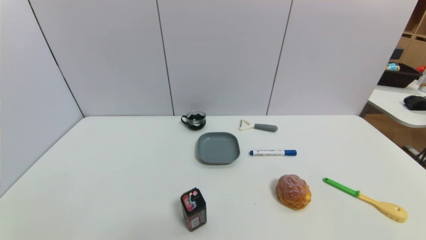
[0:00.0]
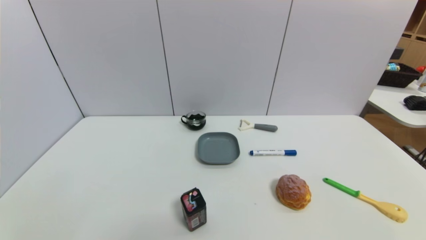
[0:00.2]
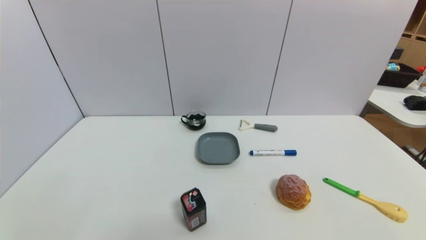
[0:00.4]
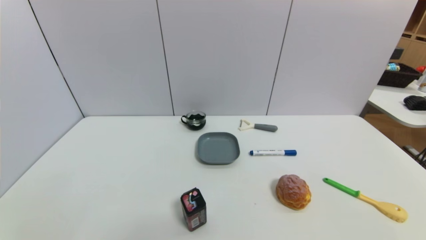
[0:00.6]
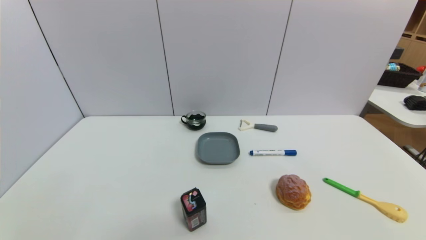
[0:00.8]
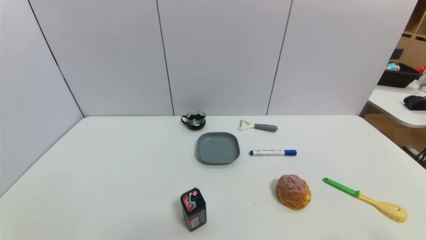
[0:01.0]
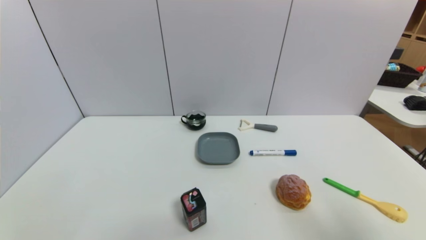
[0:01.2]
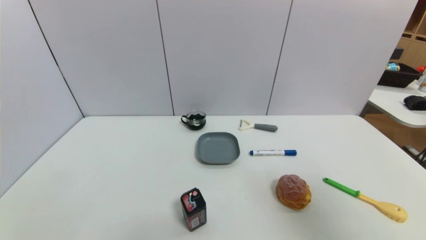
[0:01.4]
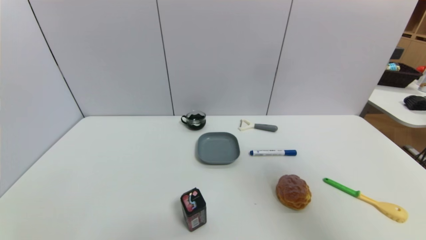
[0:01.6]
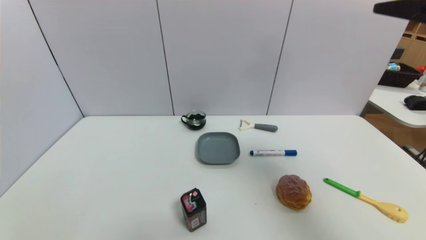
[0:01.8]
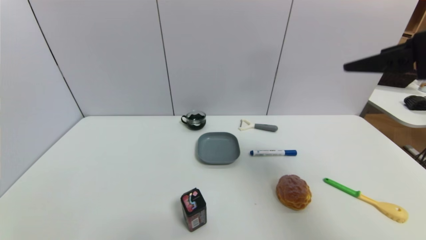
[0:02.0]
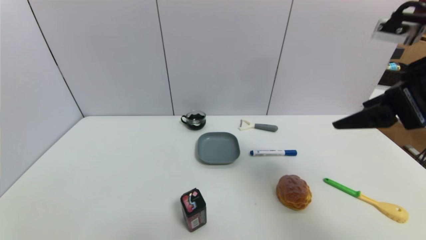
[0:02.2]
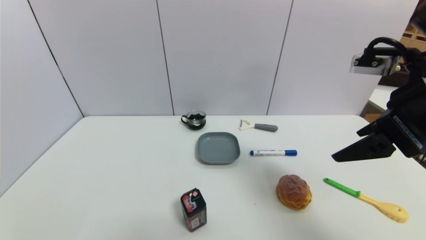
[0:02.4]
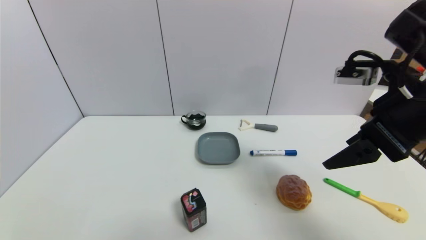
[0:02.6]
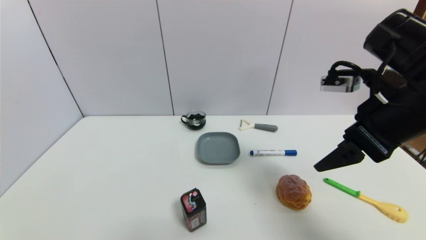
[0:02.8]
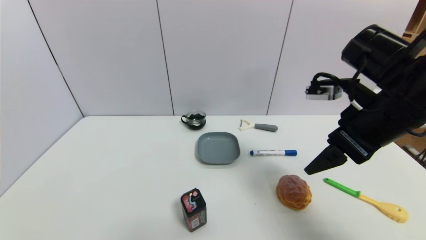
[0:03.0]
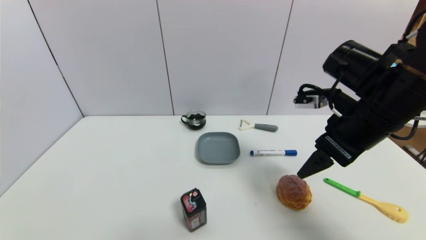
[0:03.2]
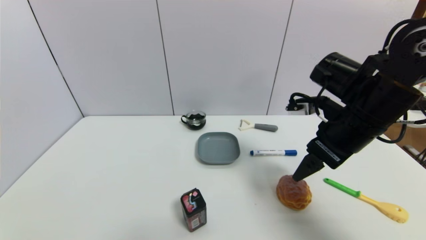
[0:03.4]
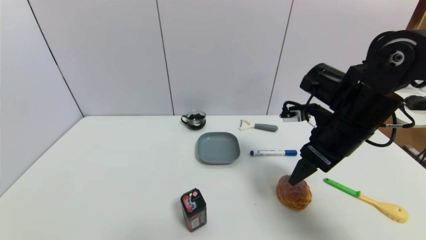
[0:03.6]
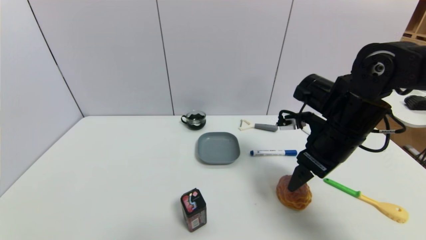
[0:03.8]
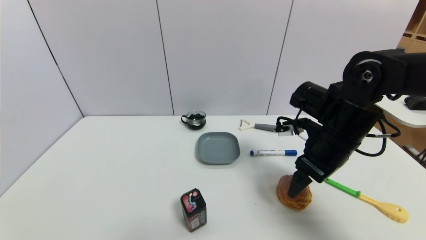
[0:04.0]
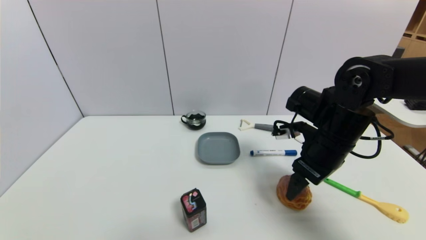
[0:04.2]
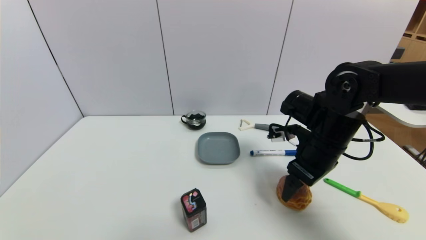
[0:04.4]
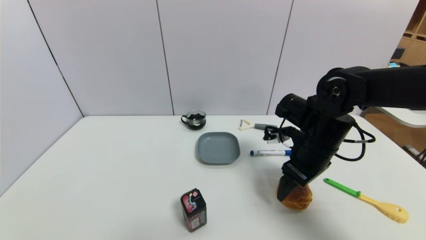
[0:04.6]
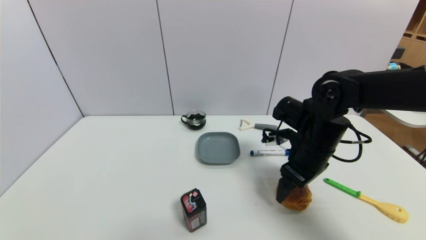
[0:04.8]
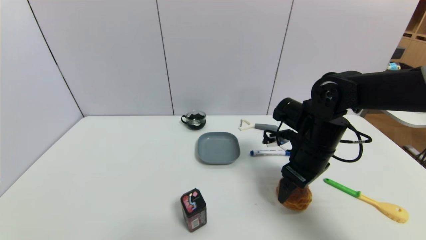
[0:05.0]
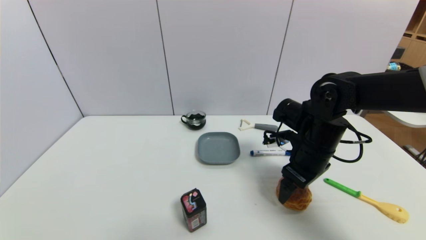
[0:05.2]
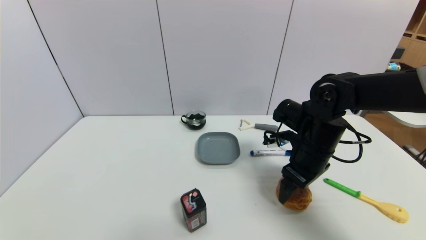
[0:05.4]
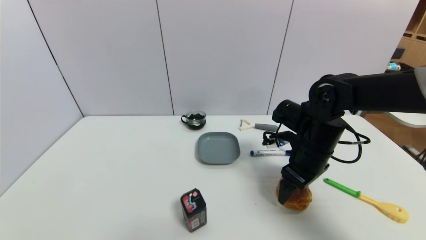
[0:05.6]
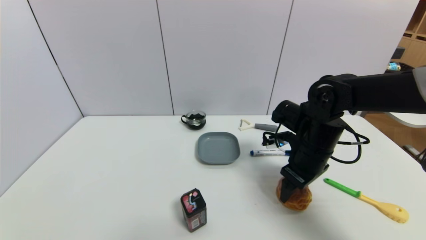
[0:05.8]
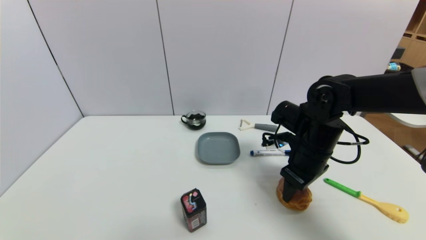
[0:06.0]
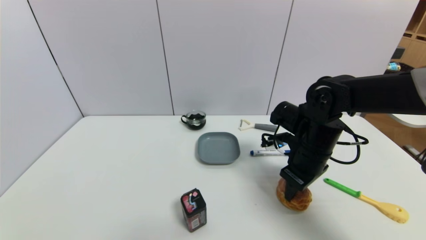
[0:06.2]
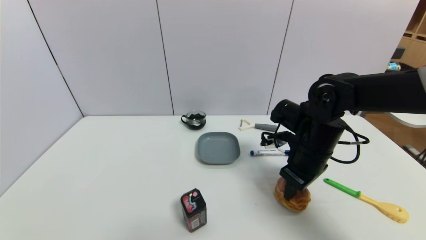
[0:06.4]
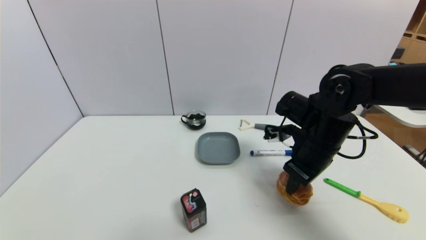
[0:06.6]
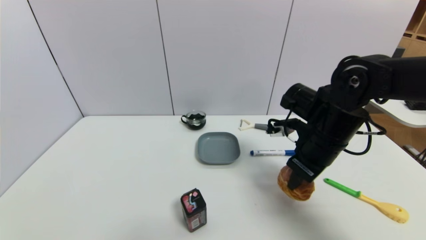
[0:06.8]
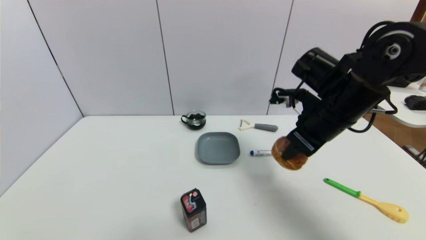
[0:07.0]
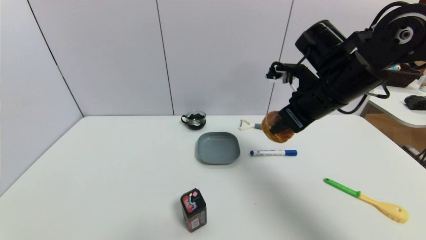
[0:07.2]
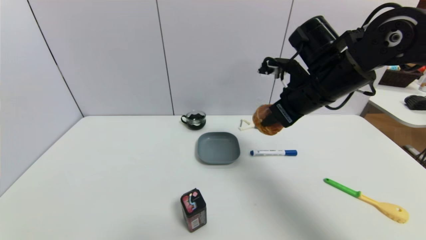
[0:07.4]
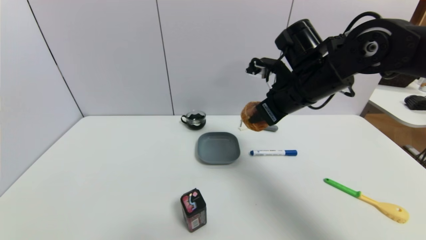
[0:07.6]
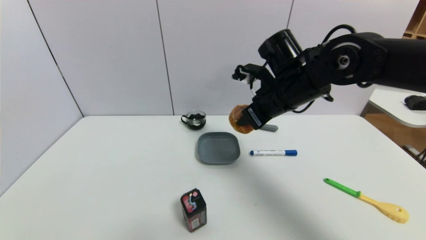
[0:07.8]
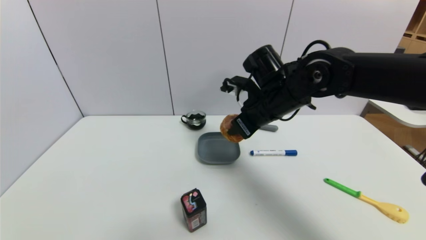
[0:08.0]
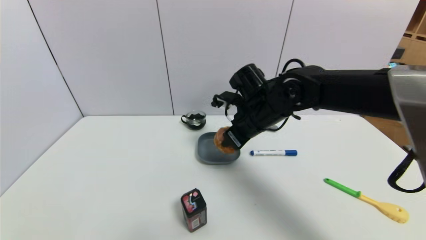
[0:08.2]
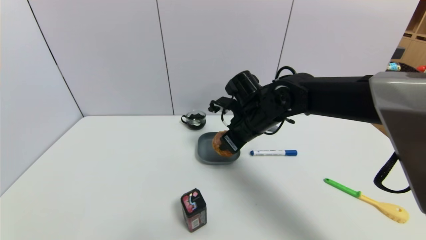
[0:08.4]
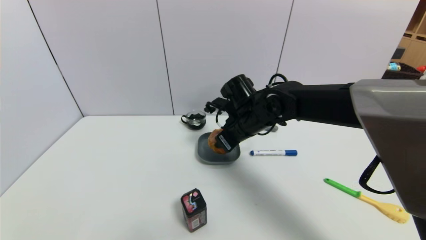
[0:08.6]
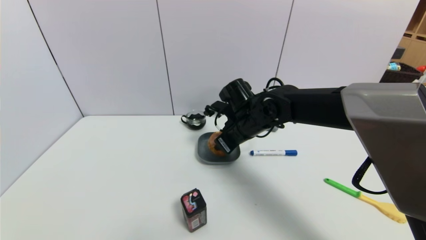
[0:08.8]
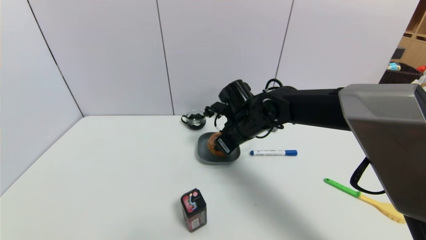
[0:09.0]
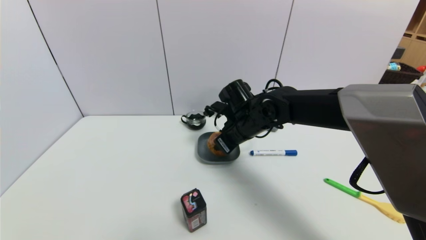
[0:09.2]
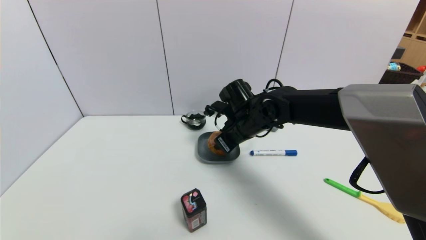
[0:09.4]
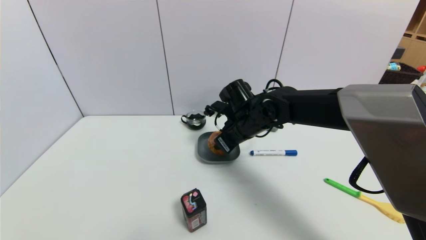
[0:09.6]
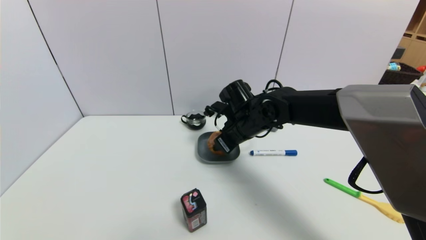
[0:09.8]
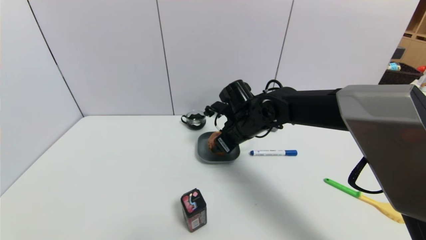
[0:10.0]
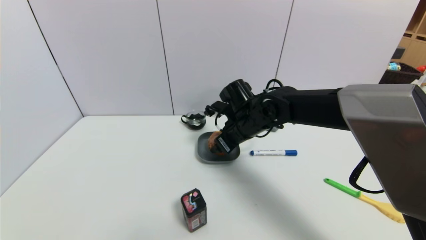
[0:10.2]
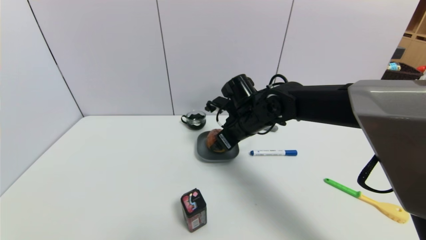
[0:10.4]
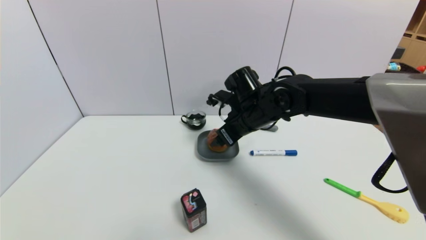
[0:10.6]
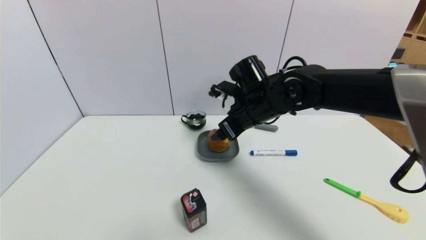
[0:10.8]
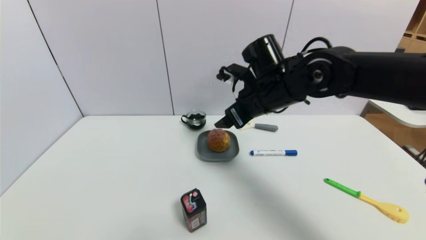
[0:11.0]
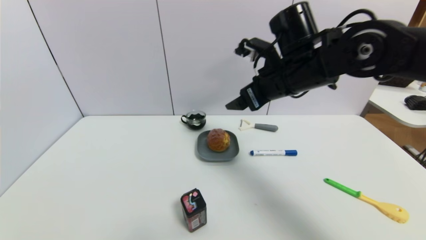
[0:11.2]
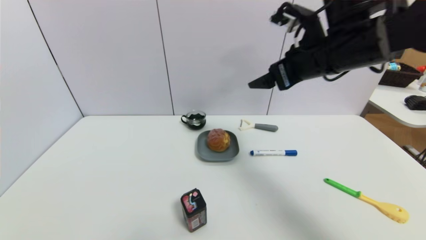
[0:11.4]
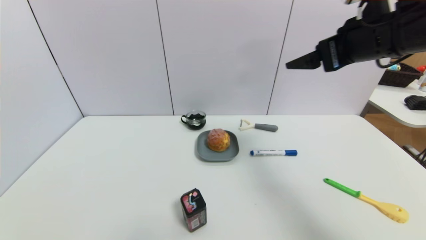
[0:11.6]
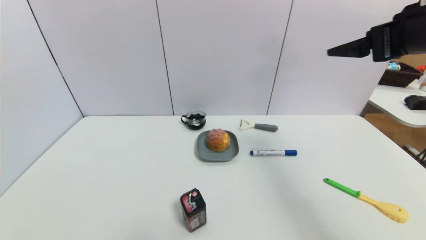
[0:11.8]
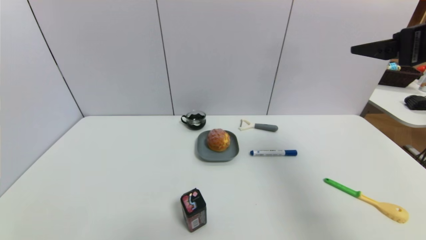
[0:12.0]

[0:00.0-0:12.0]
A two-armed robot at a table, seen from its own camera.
Task of the whole recording: use a gripper to pick the target object and place on the dish.
Step, 0:00.0 to 0:06.0: Grasp the round bread with the right gripper.
Step, 0:06.2 to 0:10.8: Place the round bread on the dish with the right gripper.
0:00.0 to 0:01.6: The right gripper shifts some 35 cm upward and forward.
0:01.6 to 0:03.0: The right gripper moves forward, downward and to the left, approximately 15 cm.
0:03.0 to 0:04.4: The right gripper heads downward and forward, covering roughly 10 cm.
0:04.4 to 0:06.0: The right gripper closes.
0:06.0 to 0:07.6: The right gripper heads upward, covering roughly 10 cm.
0:07.6 to 0:09.0: The right gripper is displaced downward and to the left by roughly 15 cm.
0:09.0 to 0:10.4: The right gripper opens up.
0:10.4 to 0:12.0: The right gripper heads to the right, upward and backward, covering roughly 35 cm.

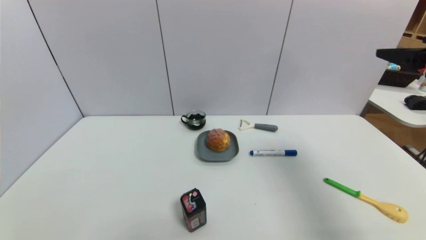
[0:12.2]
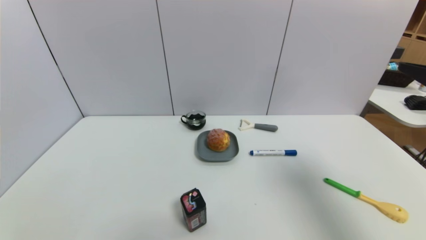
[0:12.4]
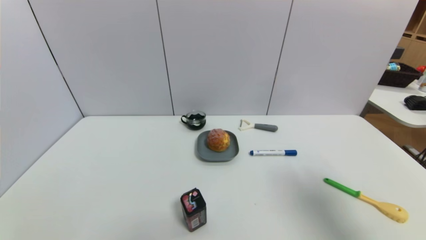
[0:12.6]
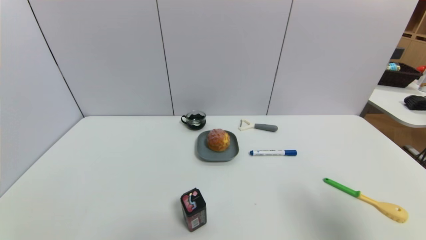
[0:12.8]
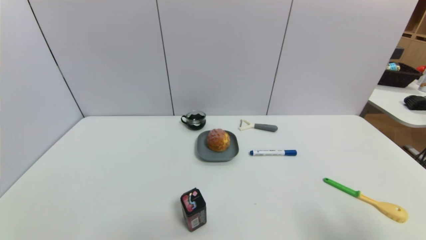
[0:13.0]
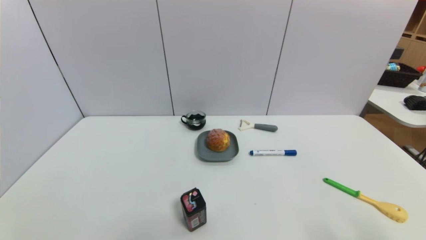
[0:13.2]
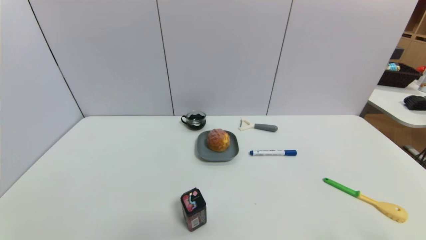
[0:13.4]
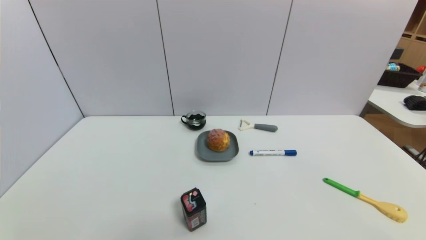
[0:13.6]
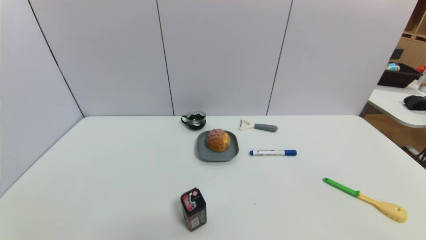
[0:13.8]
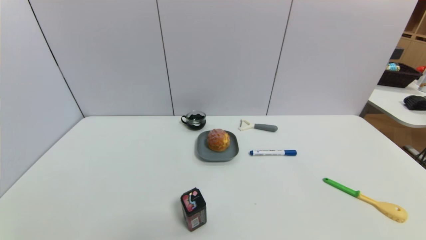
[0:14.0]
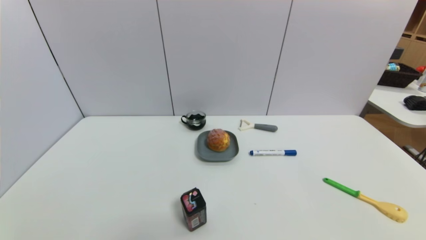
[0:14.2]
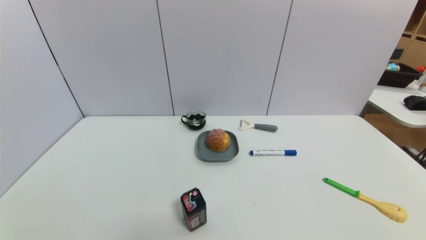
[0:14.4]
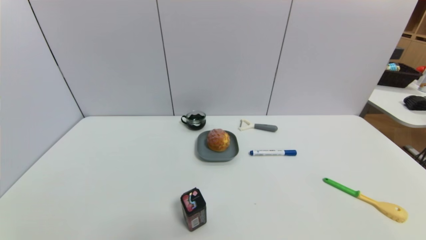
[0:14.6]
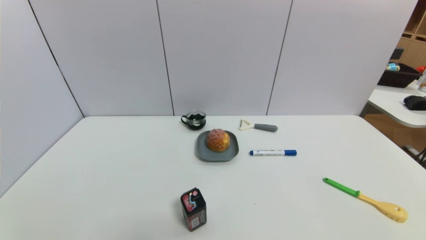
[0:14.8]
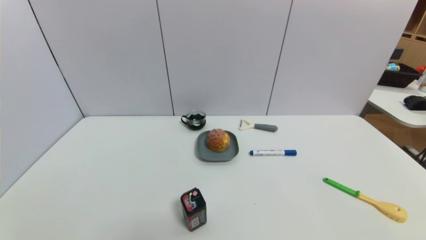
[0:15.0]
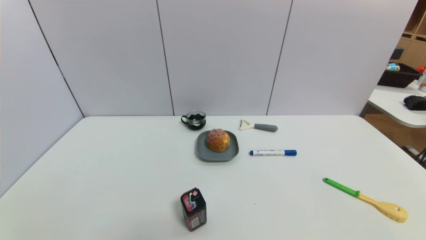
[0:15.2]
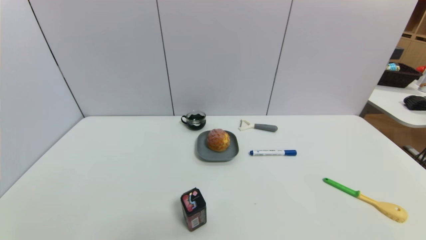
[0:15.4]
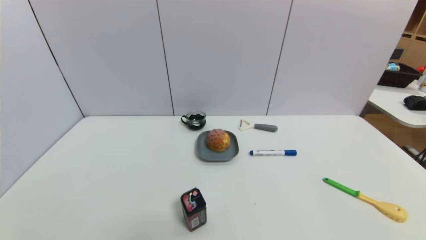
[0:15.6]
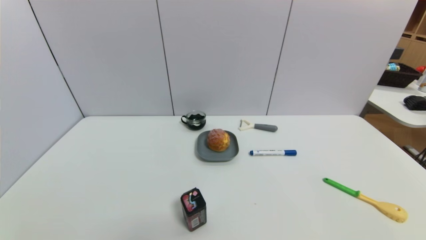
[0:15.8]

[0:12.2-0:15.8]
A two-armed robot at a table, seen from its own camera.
Task of the whole recording: use a gripper to pick the target object and place on the dish.
0:12.2 to 0:14.0: The right gripper is displaced downward and backward by some 30 cm.
